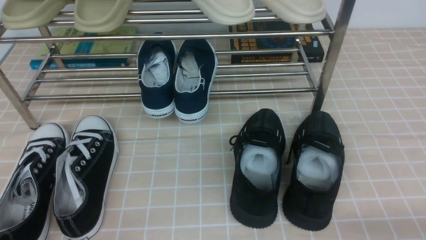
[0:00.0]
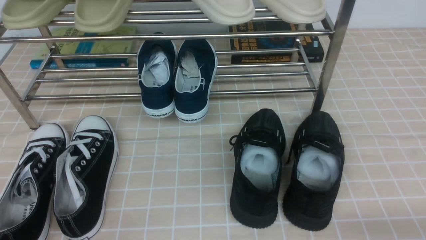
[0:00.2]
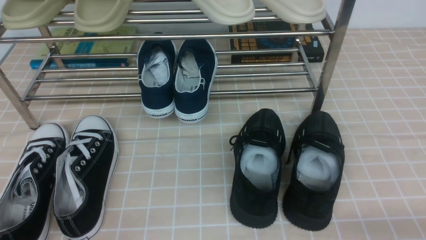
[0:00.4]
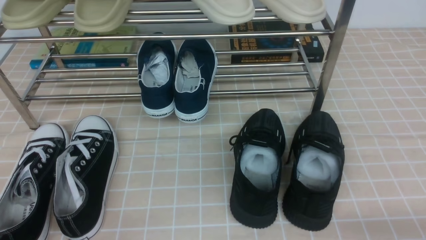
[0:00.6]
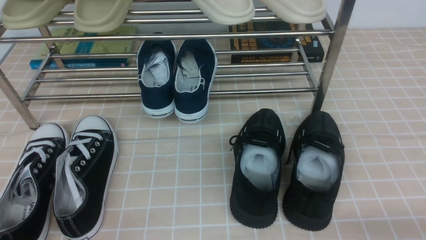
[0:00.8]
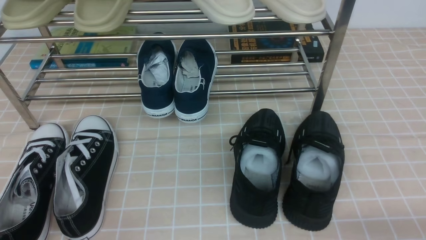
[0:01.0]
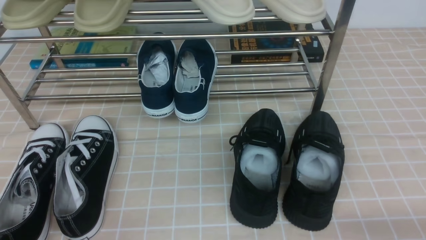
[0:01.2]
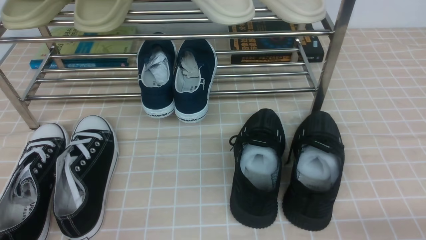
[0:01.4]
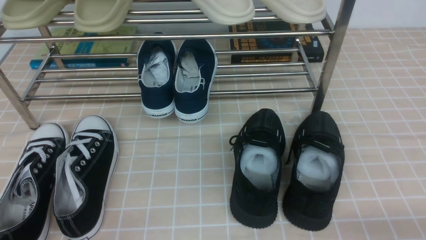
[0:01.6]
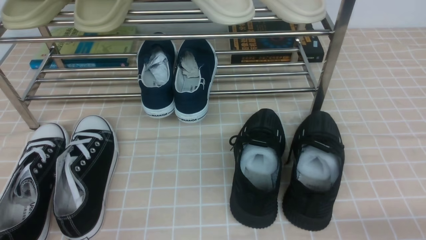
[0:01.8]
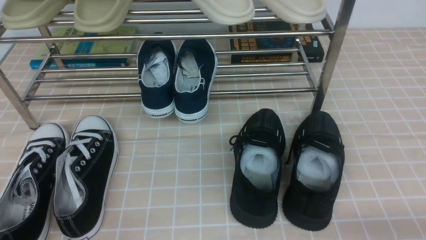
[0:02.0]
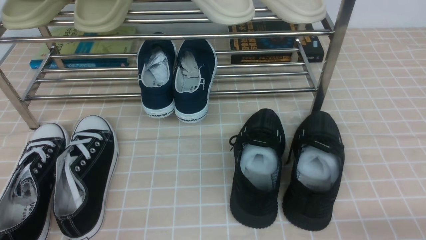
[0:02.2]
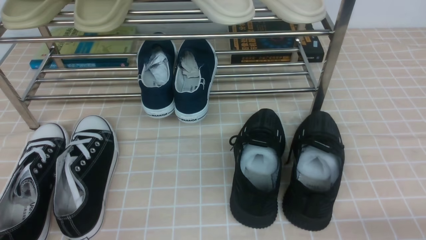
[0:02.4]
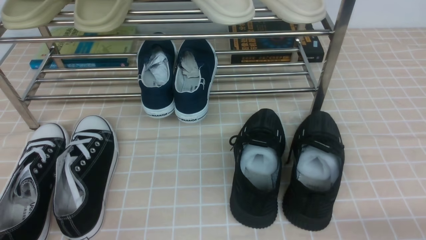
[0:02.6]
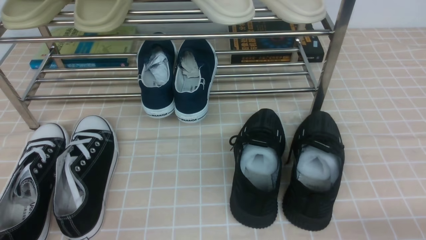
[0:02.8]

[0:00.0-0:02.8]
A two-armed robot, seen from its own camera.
0:00.0 to 0:02.8: Both grippers stay put.
